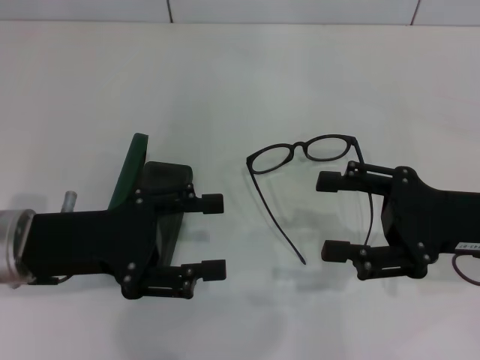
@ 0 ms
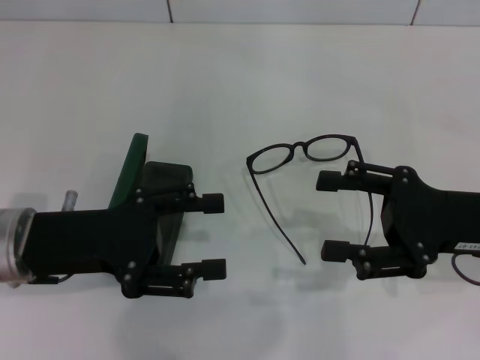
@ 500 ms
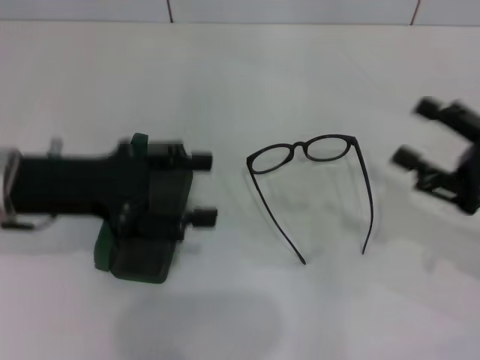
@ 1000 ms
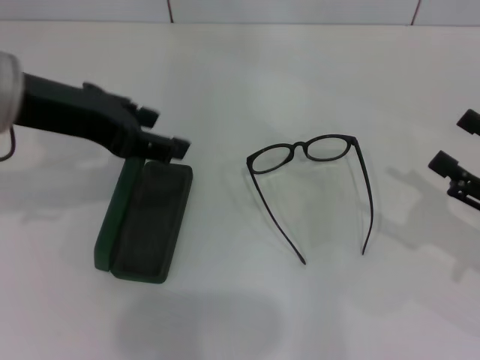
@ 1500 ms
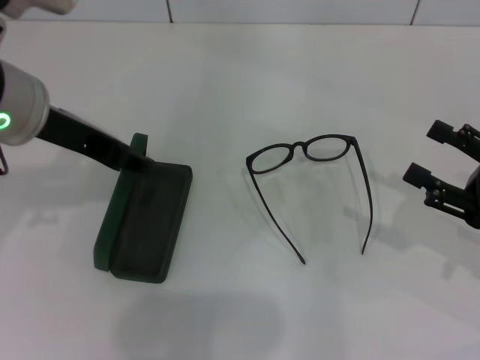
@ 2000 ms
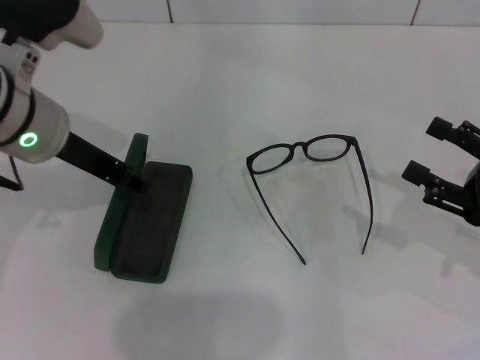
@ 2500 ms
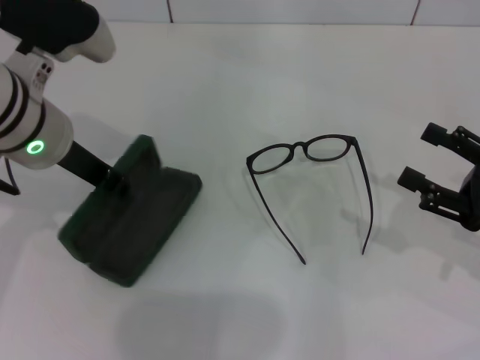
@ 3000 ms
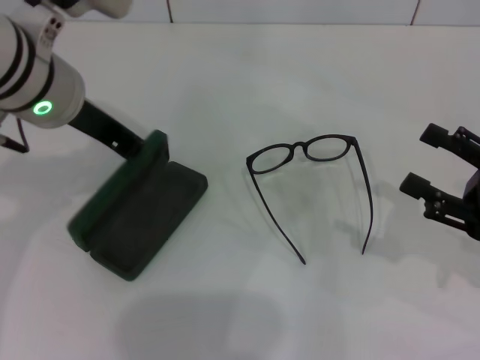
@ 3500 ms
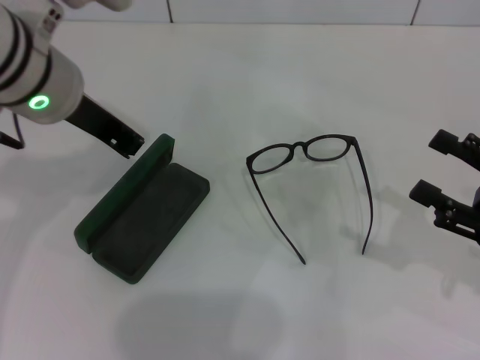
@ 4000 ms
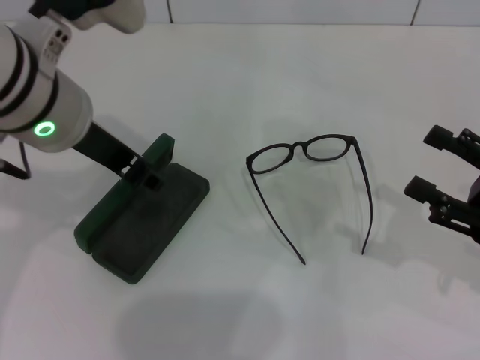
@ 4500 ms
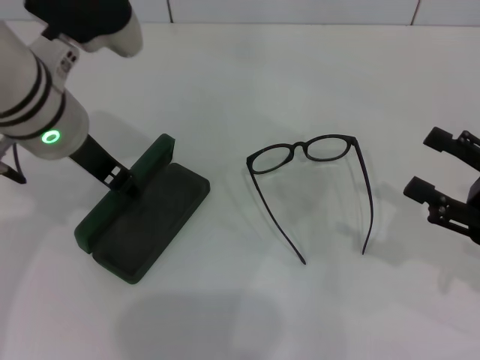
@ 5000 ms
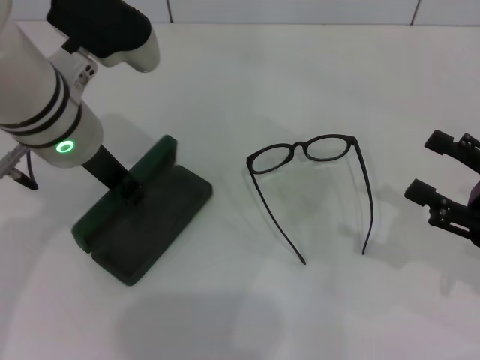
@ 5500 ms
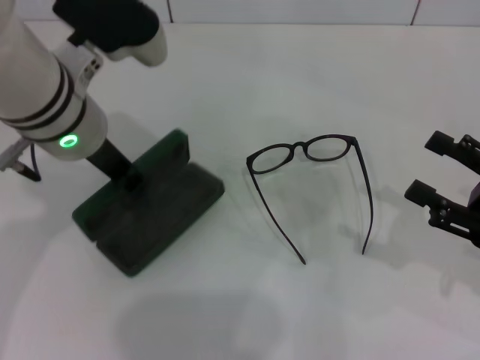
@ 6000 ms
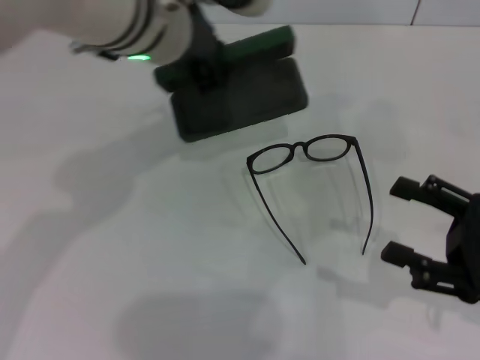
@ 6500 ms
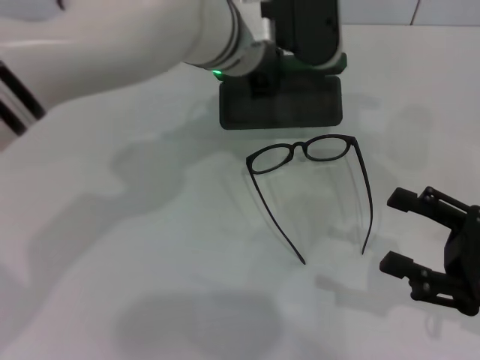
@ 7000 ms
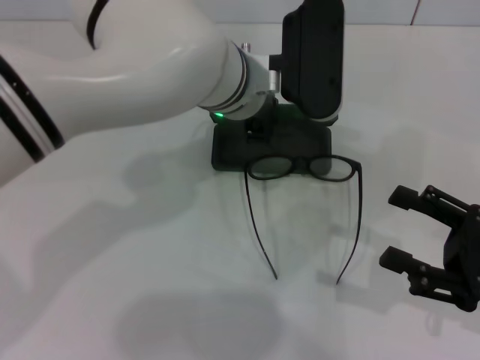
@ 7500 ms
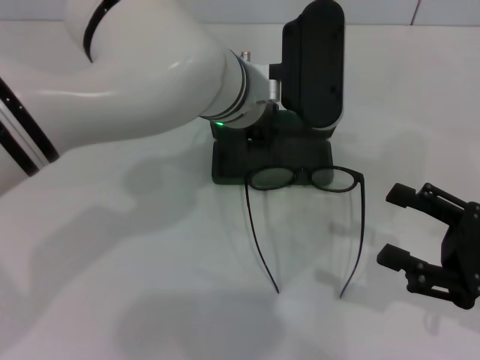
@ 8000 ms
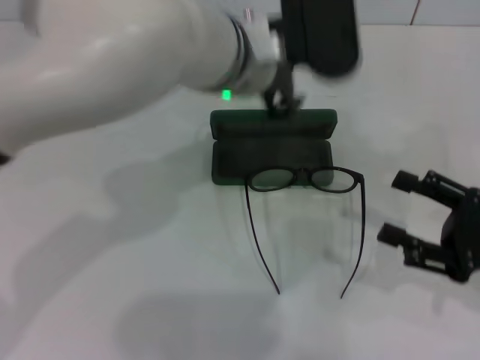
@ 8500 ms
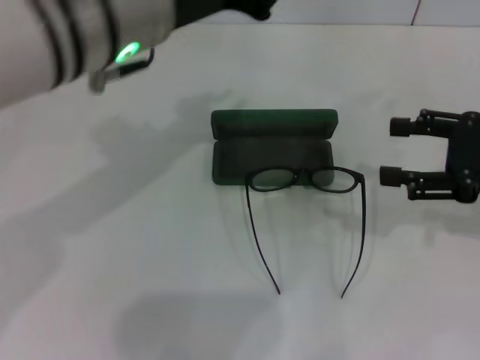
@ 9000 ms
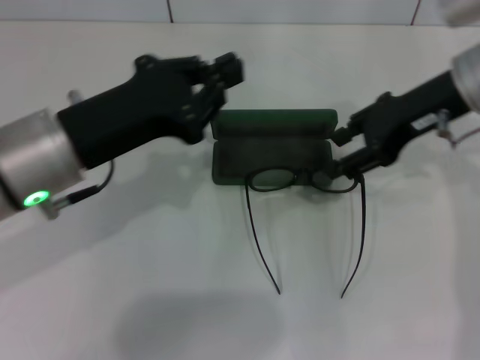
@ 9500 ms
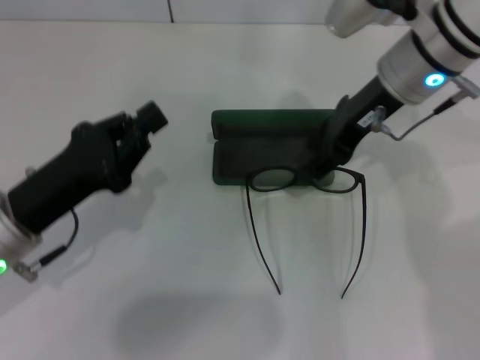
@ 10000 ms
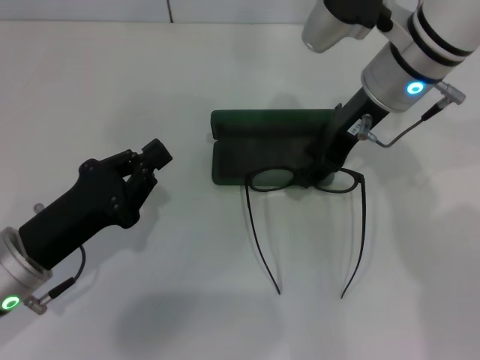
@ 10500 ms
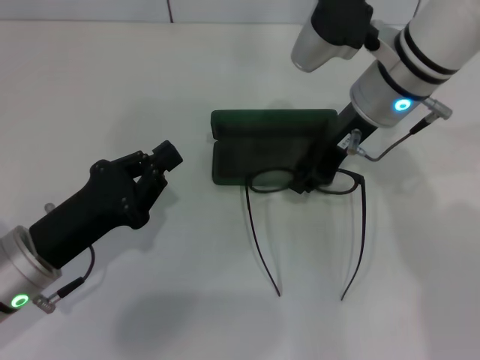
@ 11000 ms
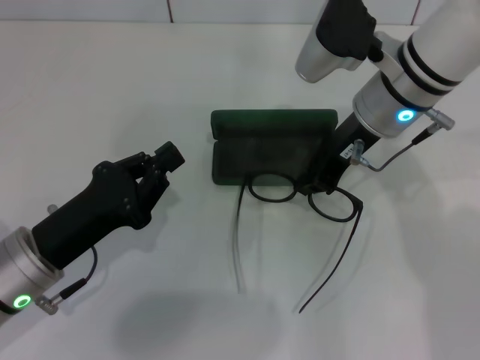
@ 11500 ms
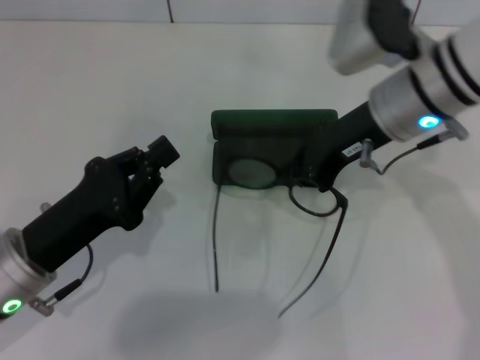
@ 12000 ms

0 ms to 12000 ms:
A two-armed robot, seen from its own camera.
Step, 0 ms to 2500 ms: Grab the glasses case with your left hand.
Step, 3000 ms to 8000 ms: Place the glasses case in the center of the table with your left hand.
Step, 8500 ms to 11000 ms: Grab the eyeglass frame with your right hand.
0 ms to 2000 ms: The right gripper heads to the right, covering roughly 5 cm; the left gripper is displaced upward and forward by some 15 cm.
2000 ms to 4000 ms: The left gripper closes its fingers.
4000 ms to 6000 ms: The left gripper opens, then closes once more.
6000 ms to 8000 ms: The left gripper travels to the right by approximately 10 cm.
8000 ms to 10000 ms: The right gripper is displaced forward, to the left and upward by about 30 cm. Meanwhile the left gripper goes roughly 25 cm to the left and backward, and closes.
10000 ms to 12000 ms: The right gripper closes up.

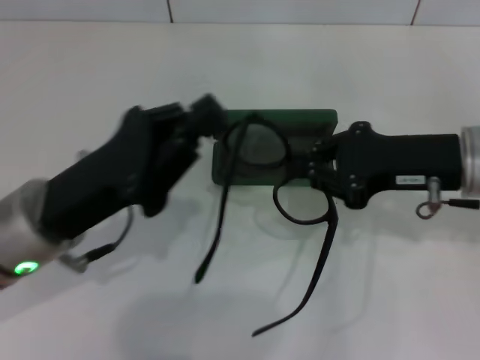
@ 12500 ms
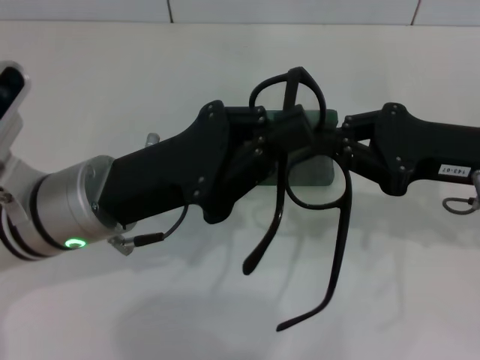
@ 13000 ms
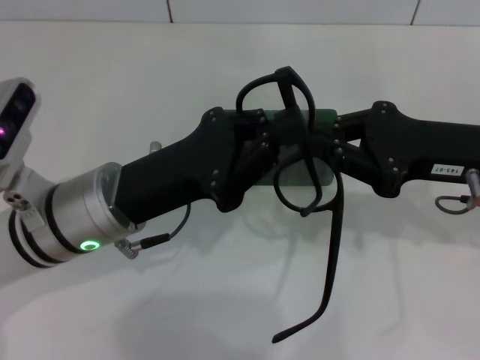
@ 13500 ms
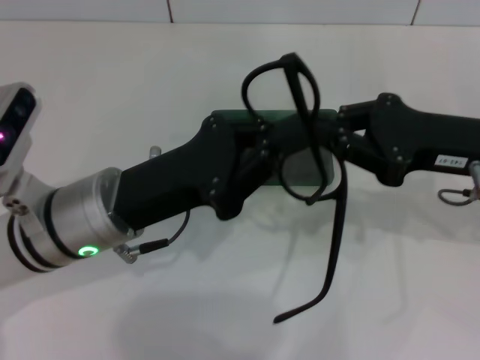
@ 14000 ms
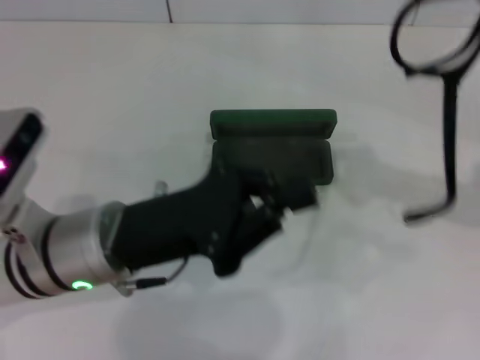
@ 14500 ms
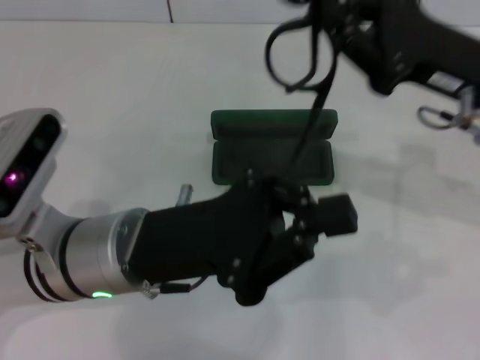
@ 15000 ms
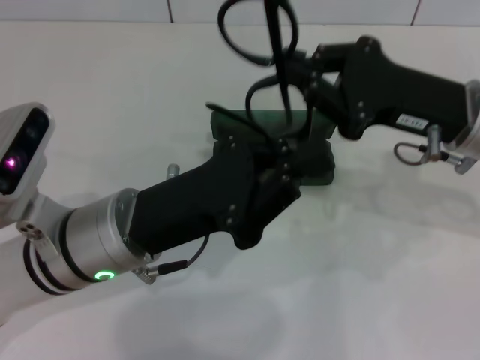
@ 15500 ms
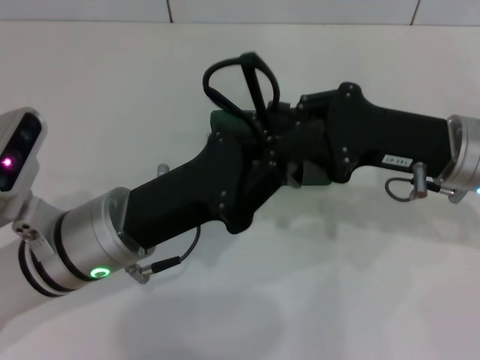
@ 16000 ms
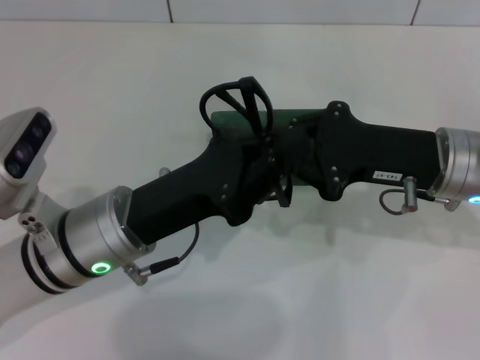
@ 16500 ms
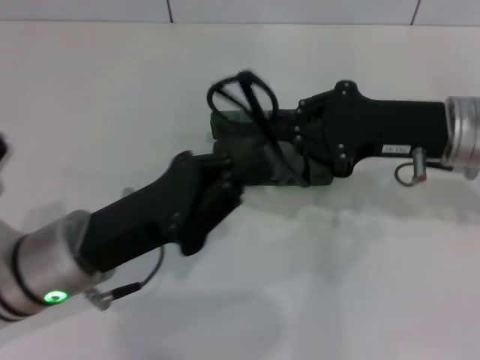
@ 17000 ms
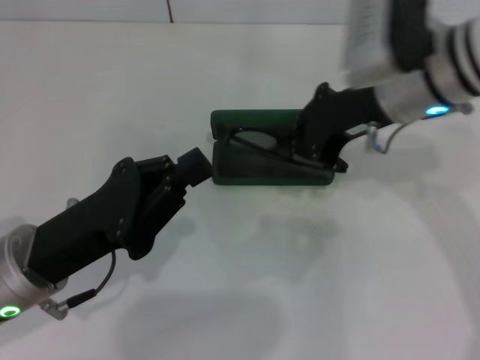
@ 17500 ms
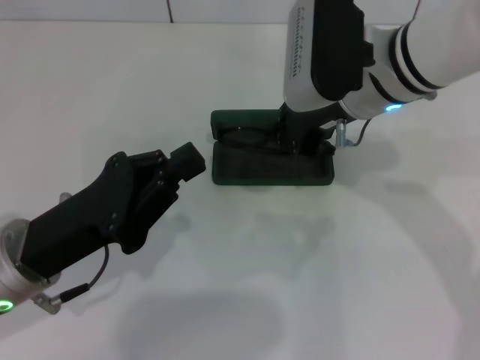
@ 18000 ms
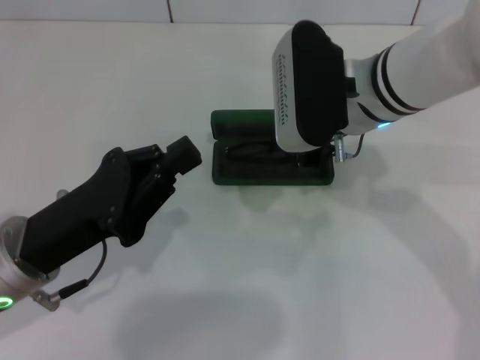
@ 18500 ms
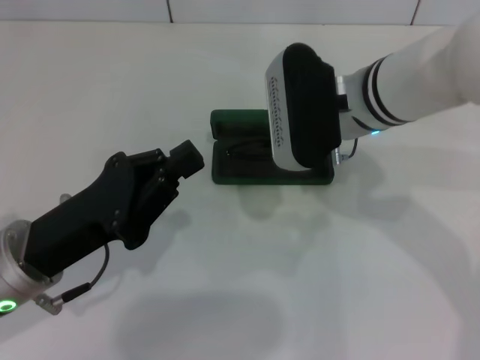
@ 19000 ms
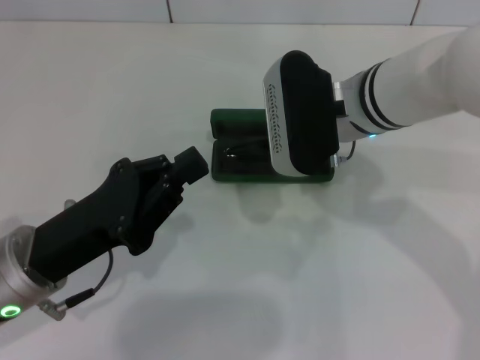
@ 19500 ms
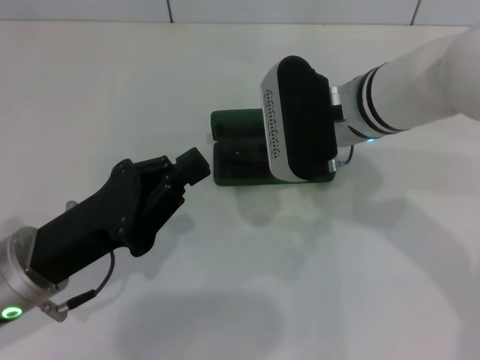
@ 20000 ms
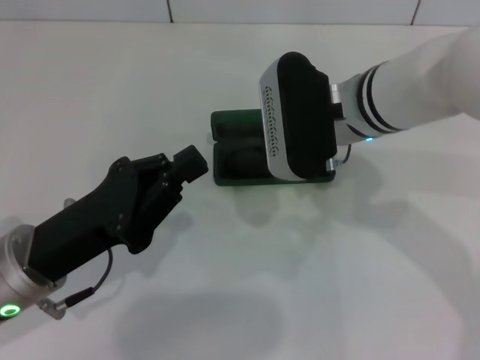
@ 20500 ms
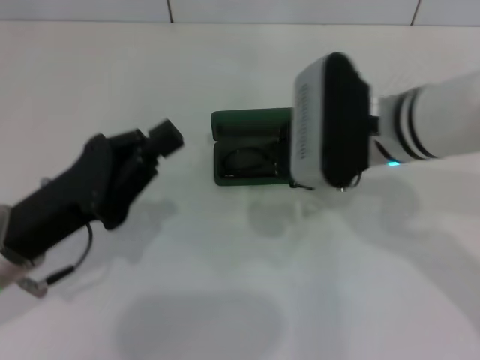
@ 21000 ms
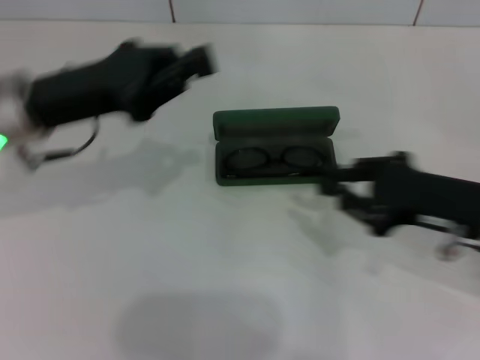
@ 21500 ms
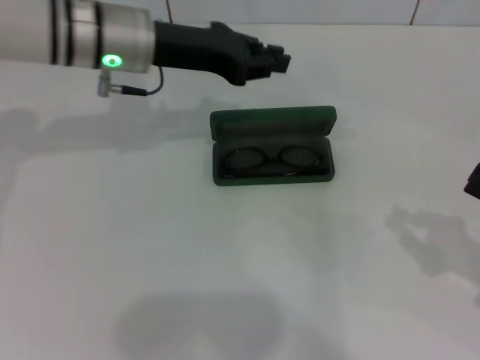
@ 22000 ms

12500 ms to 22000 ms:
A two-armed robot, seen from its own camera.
Step, 12500 ms to 16500 ms: Fold the frame with your left hand.
Step, 17000 ms to 20000 ms: Put the glasses into the case with your right hand.
12500 ms to 14500 ms: The right gripper travels to the right and upward by approximately 10 cm.
14500 ms to 16500 ms: The right gripper shifts approximately 15 cm to the left and downward.
16500 ms to 18000 ms: The right gripper shifts approximately 15 cm to the left, forward and upward; the left gripper travels to the left by roughly 5 cm.
18000 ms to 20000 ms: The grippers stay close to where they were, moving slightly.
20000 ms to 22000 ms: The left gripper is displaced forward and upward by approximately 25 cm; the right gripper is displaced to the right and backward by roughly 30 cm.

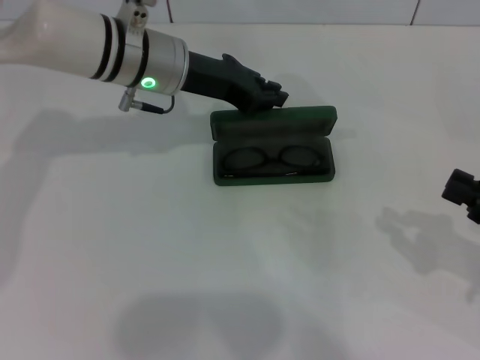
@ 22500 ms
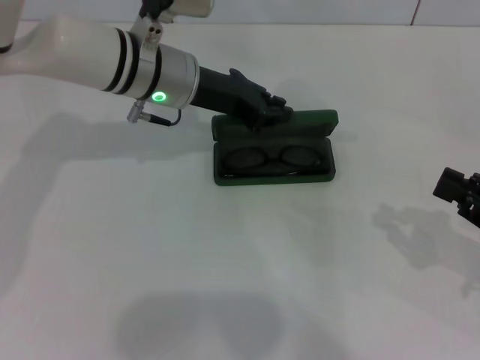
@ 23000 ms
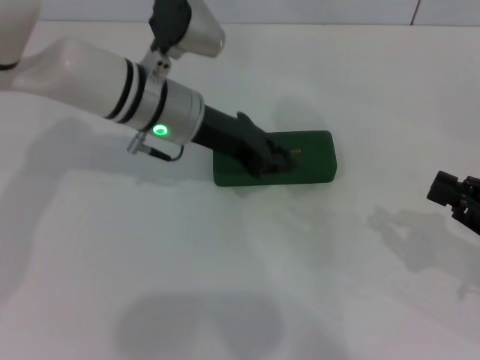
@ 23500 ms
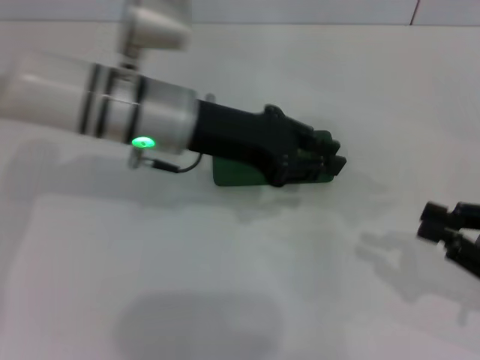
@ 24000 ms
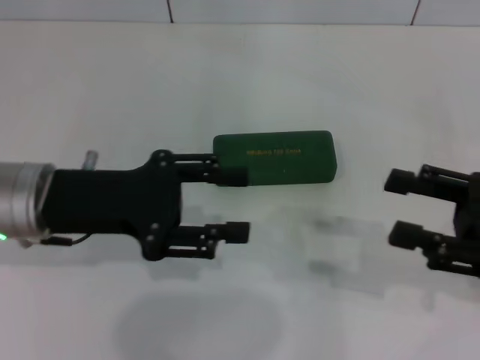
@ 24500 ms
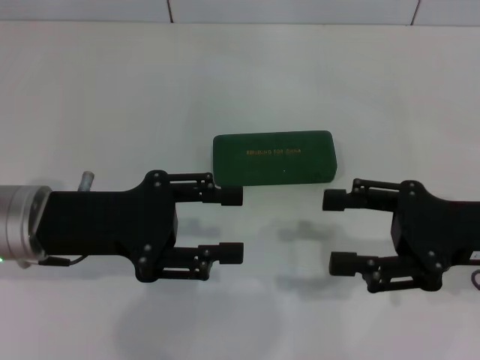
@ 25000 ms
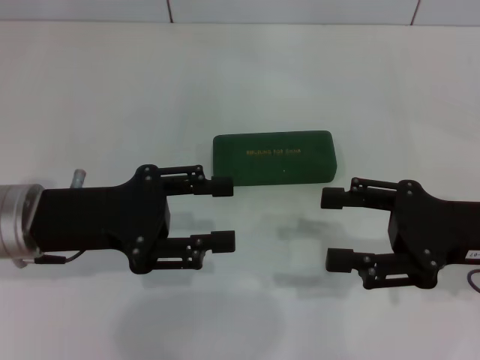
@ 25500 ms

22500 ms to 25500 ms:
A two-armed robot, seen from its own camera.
22500 ms to 24000 ms: The left gripper goes some 10 cm backward.
24000 ms to 25500 ms: The right gripper moves to the left, roughly 10 cm, and opens up. Meanwhile the left gripper shifts some 15 cm to the left and backward, and opens up.
